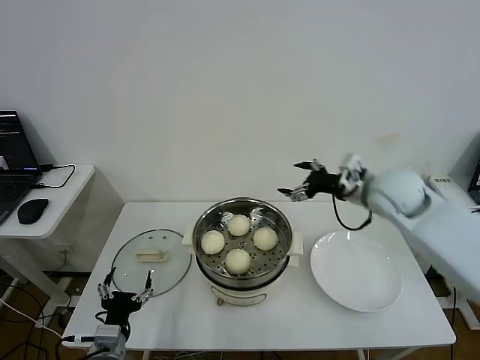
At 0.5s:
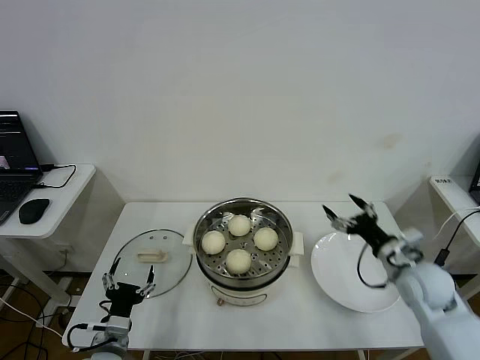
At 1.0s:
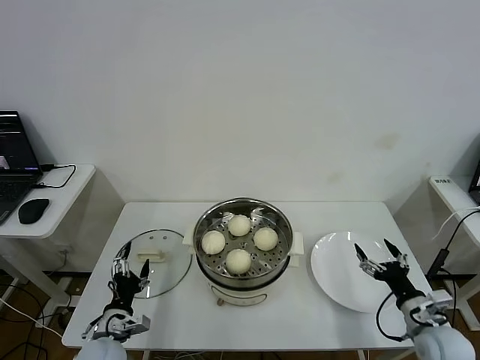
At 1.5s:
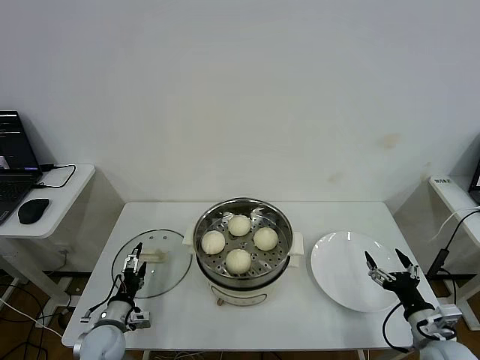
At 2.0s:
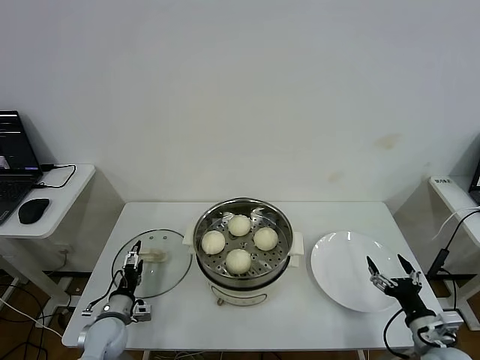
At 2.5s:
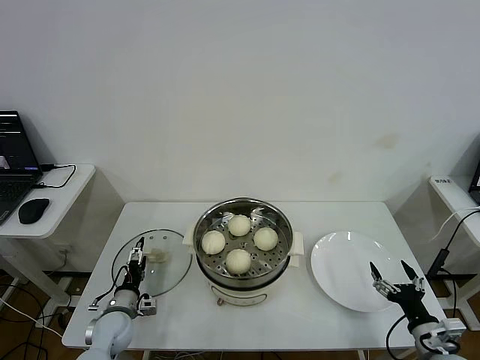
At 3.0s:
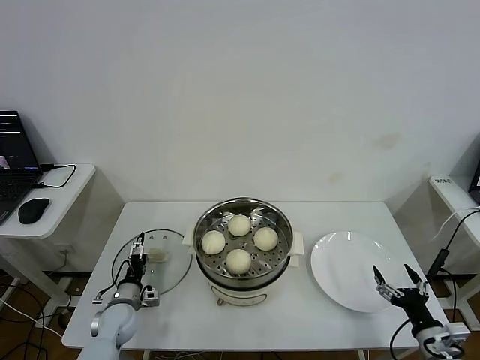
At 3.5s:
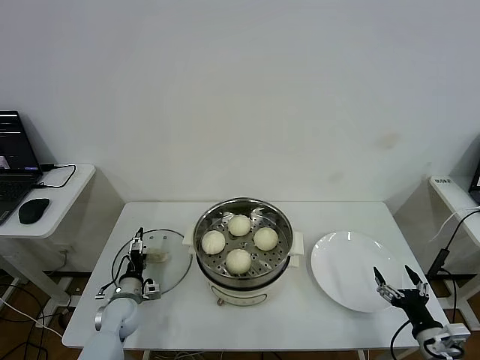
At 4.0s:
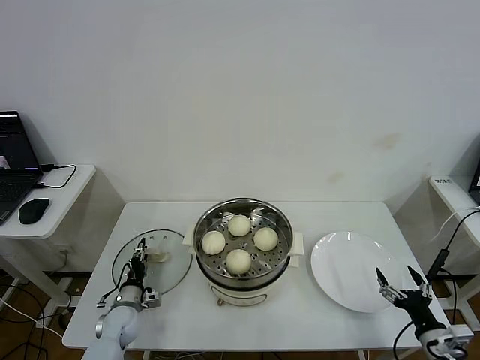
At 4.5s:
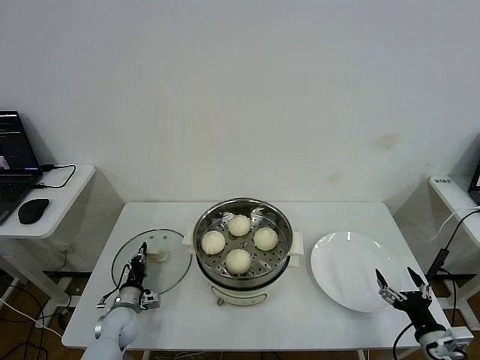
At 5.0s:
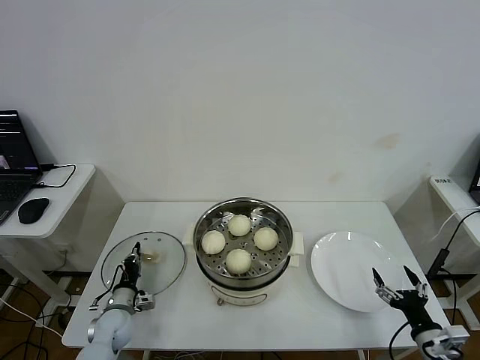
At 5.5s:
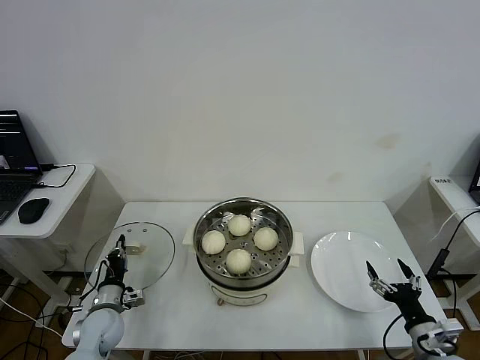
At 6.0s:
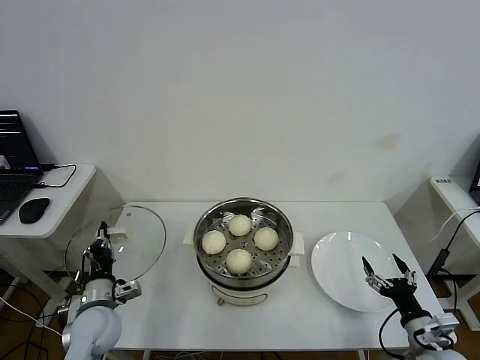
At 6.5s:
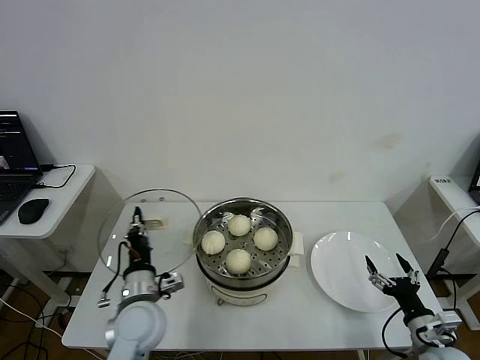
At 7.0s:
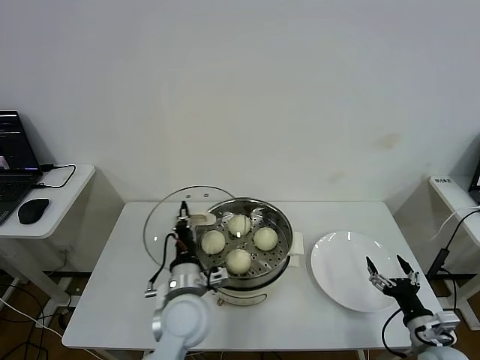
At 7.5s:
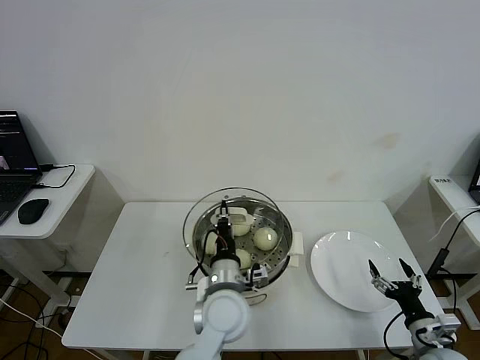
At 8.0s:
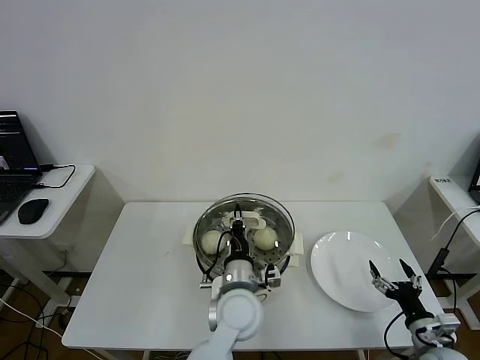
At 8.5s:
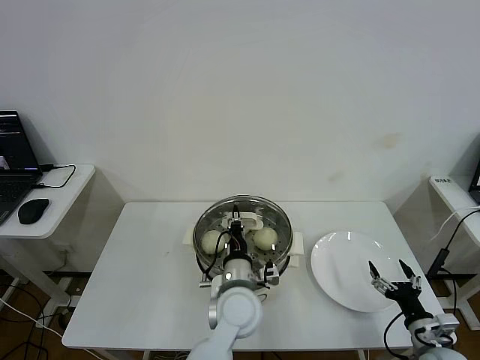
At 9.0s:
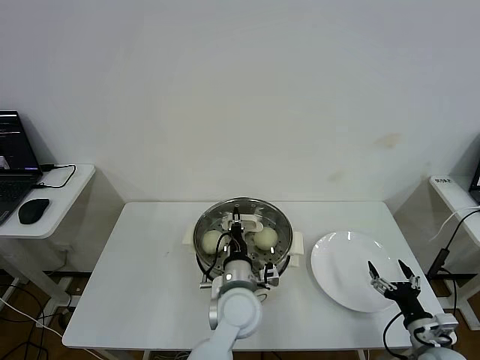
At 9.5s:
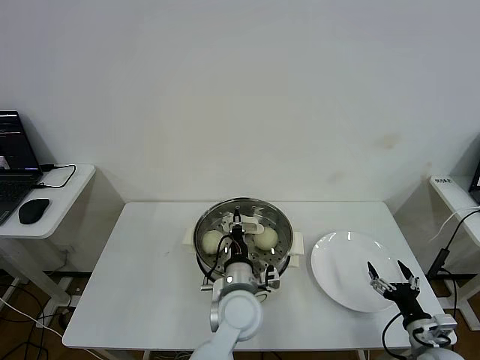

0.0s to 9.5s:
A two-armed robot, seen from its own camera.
Step, 0.0s to 4.5s: Grasp the pot lid with left gripper.
0.0s to 2.0s: The left gripper shifts roughly 15 cm forward, downward and to the left; the right gripper shifts about 40 cm backward, downward and to the right.
2.0s to 4.0s: The left gripper moves about 5 cm, and closes up.
4.0s to 5.5s: The left gripper moves upward, about 5 cm, and closes up.
5.5s to 7.5s: The left gripper heads to the right and upward, covering some 35 cm.
7.5s to 9.5s: The grippers make only small movements.

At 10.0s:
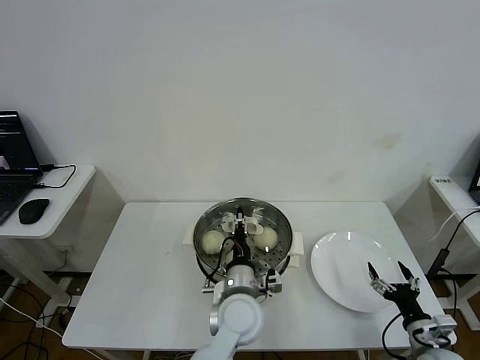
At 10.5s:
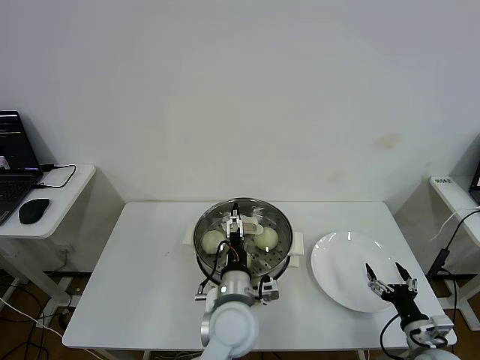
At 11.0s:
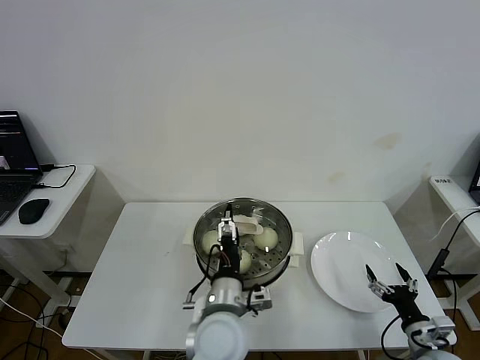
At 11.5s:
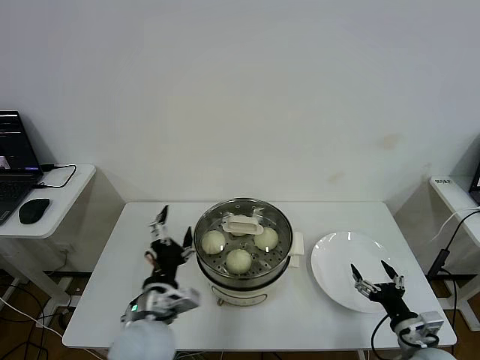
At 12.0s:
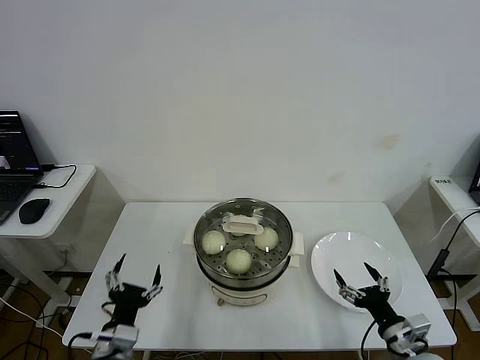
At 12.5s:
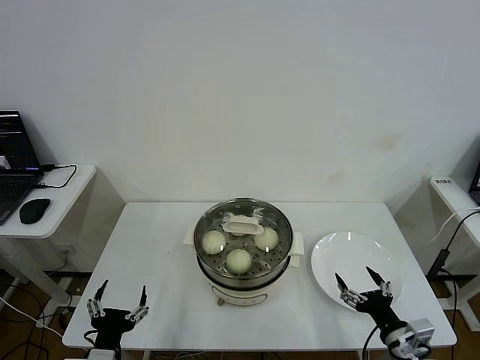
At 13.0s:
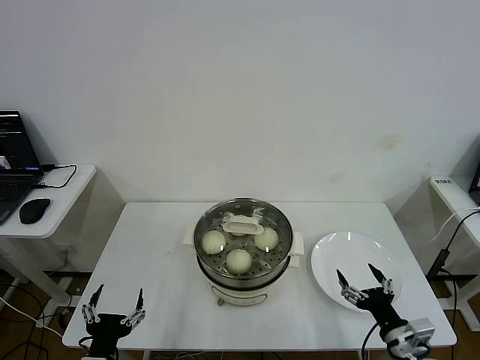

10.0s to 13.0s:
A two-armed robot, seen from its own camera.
10.0s to 11.5s: The left gripper shifts roughly 15 cm to the left and backward, and opens up.
11.5s to 13.0s: The right gripper shifts by about 5 cm. The left gripper travels to the left, backward and downward by some 20 cm.

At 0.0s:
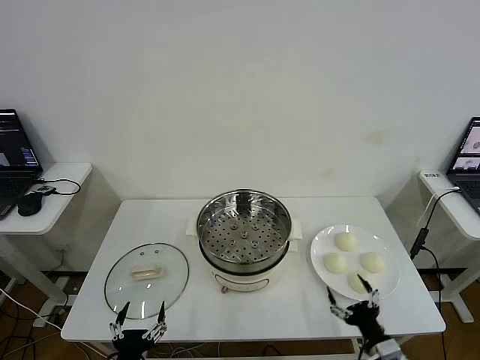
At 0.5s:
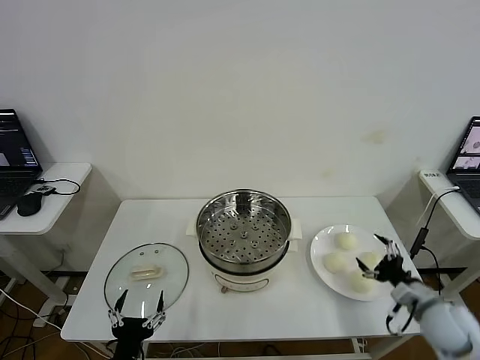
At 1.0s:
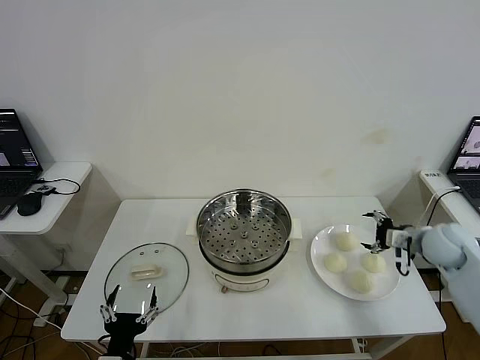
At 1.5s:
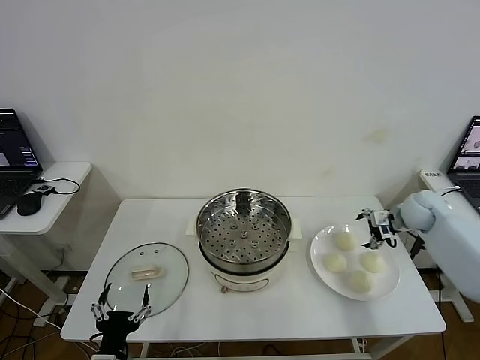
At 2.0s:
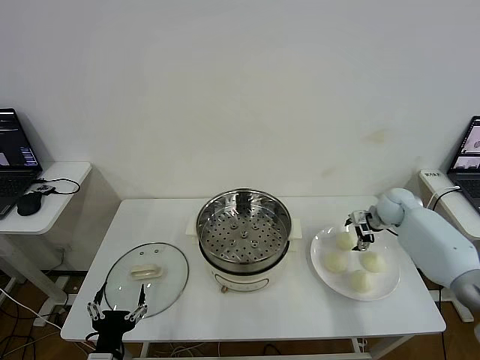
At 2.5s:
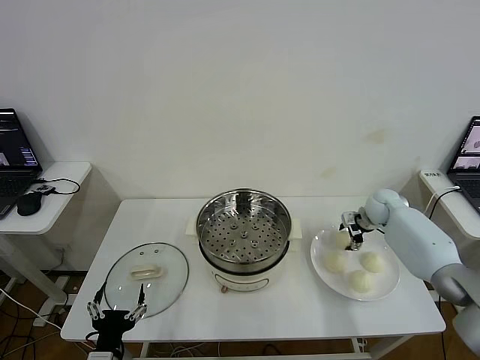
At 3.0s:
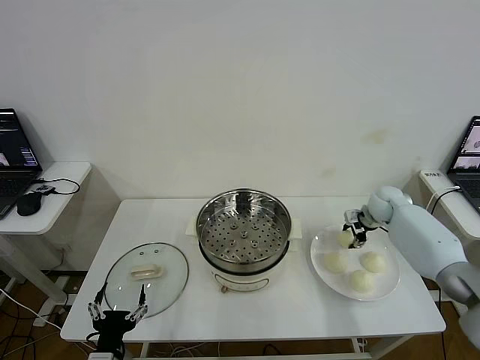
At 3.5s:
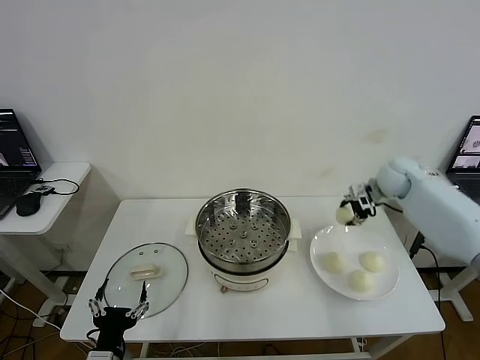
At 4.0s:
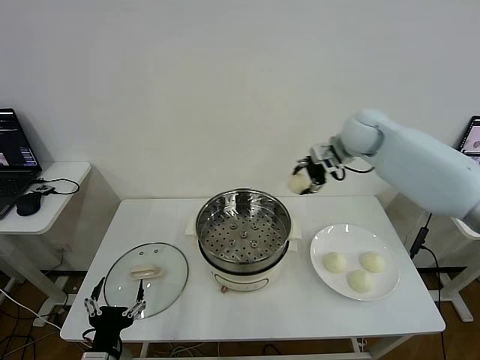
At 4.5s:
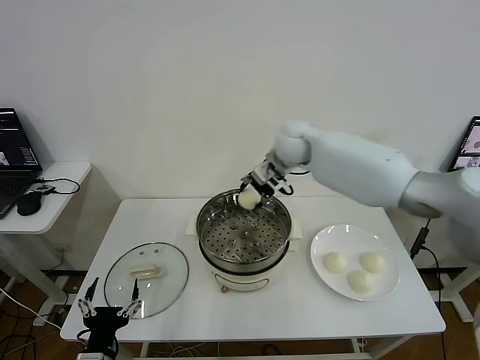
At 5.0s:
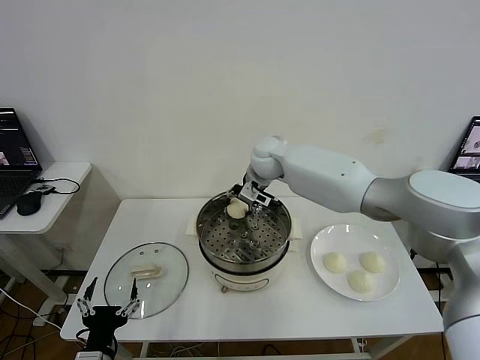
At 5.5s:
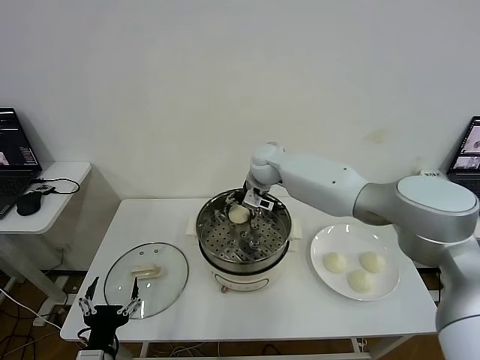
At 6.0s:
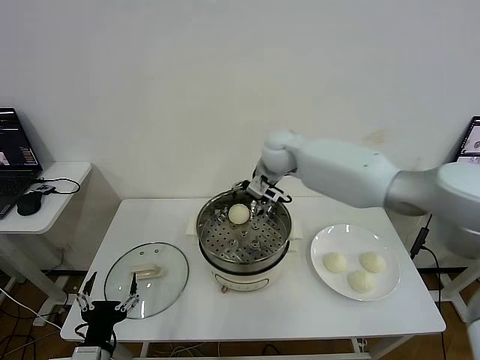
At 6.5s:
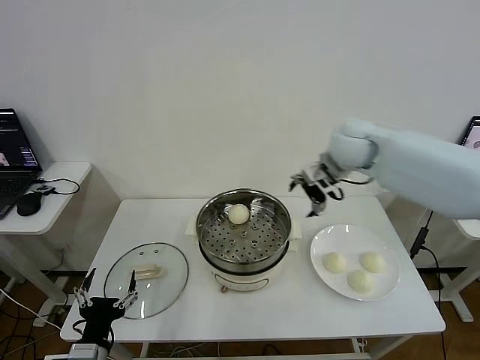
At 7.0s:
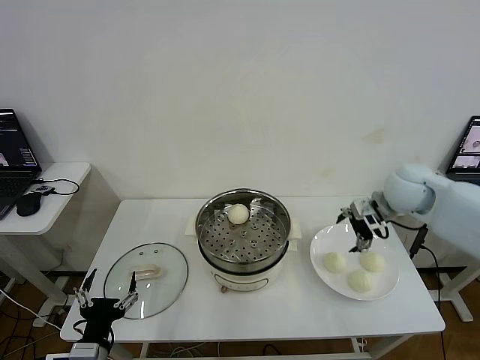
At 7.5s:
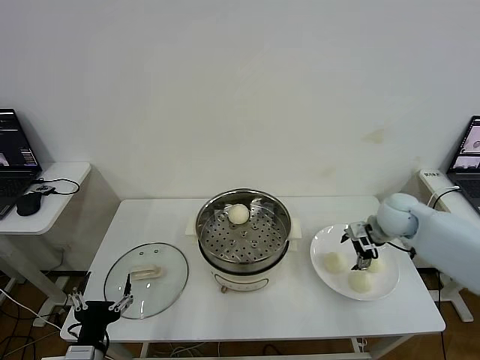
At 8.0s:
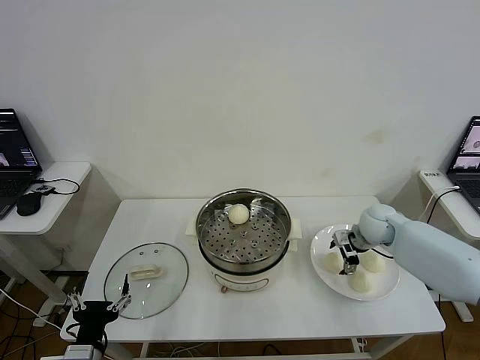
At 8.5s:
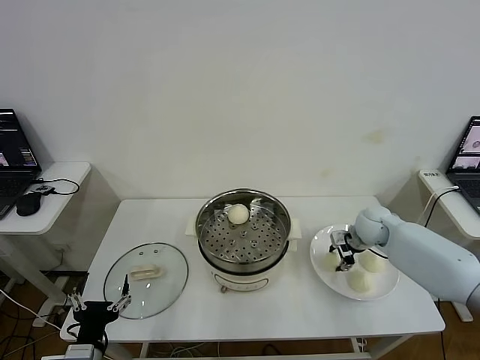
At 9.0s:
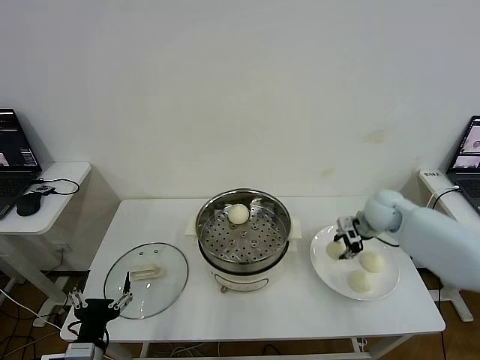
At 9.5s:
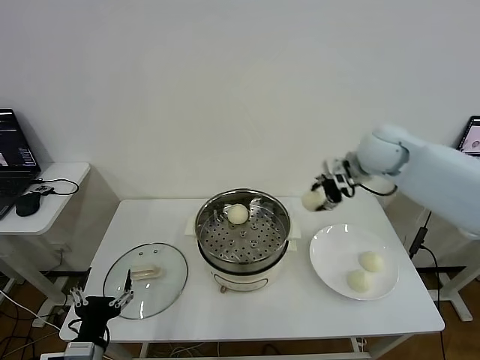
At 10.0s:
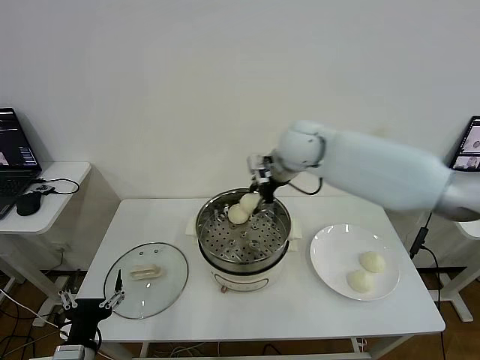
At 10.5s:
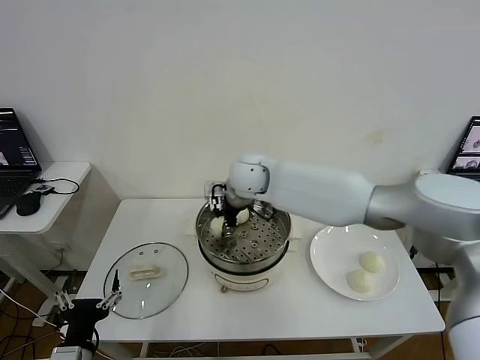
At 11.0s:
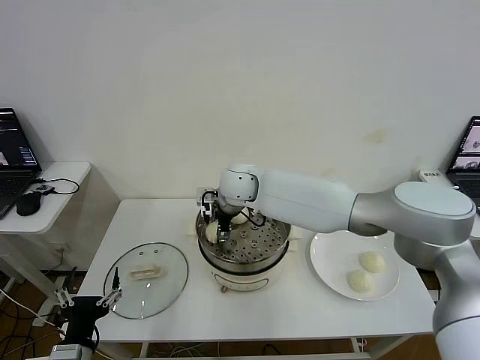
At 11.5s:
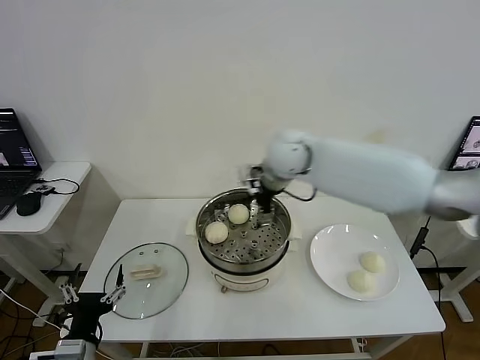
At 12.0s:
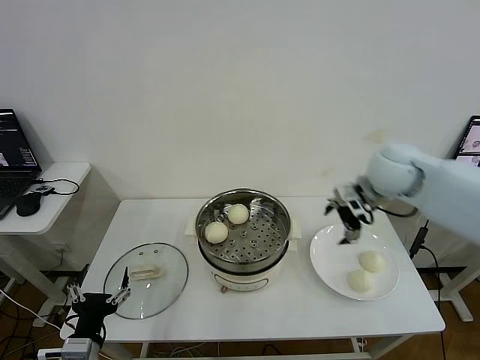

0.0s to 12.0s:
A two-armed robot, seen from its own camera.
Step, 0.0s to 2.5s: Grasp the baozi in the plate with right gripper.
Step, 3.0s to 5.5s: Place the baozi on the steamer with right gripper.
Step, 6.0s to 8.5s: Grasp the baozi in the plate with right gripper.
Step, 9.0s to 11.0s: Place the baozi on the steamer with right gripper.
2.0s to 4.0s: The right gripper goes roughly 30 cm upward and to the left, and closes its fingers.
4.0s to 6.0s: The right gripper moves to the left, roughly 10 cm, and opens its fingers.
6.0s to 8.0s: The right gripper heads to the right and downward, covering roughly 30 cm.
8.0s to 10.0s: The right gripper goes roughly 30 cm to the left and upward, and closes up.
10.0s to 12.0s: The right gripper travels to the right by approximately 20 cm, and opens its fingers.

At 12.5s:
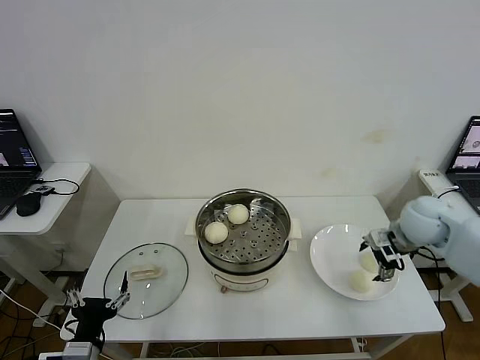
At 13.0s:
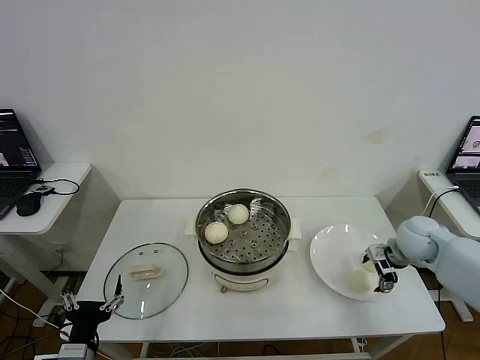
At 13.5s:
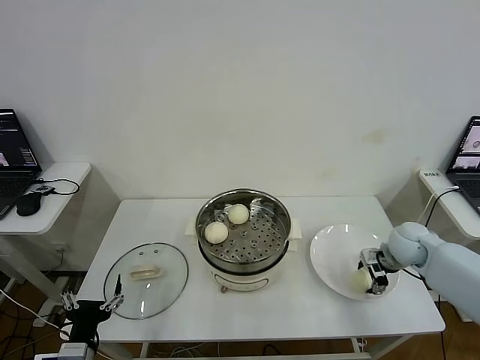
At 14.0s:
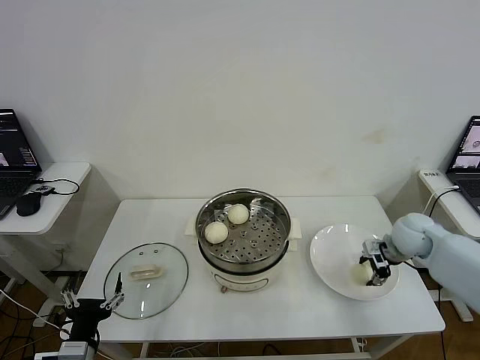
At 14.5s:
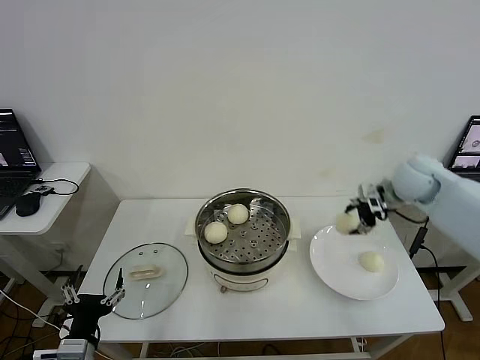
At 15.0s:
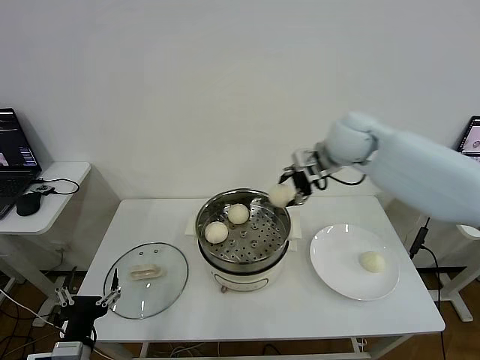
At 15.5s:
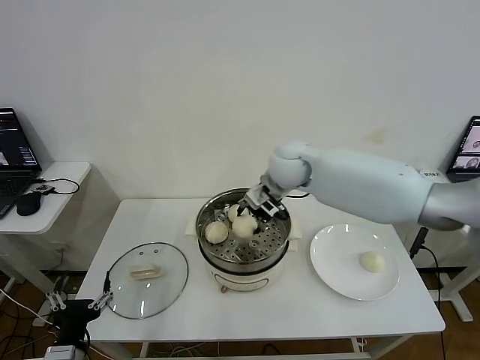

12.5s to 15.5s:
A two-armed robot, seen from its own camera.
12.5s to 14.0s: The right gripper closes its fingers.
14.0s to 15.5s: The right gripper travels to the left and upward by approximately 35 cm.
